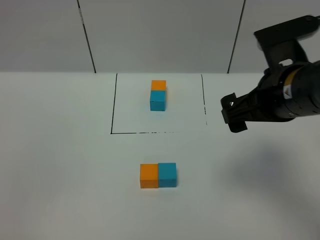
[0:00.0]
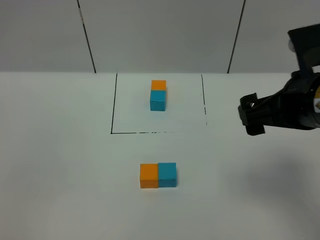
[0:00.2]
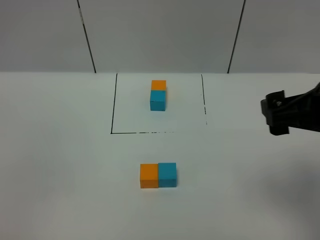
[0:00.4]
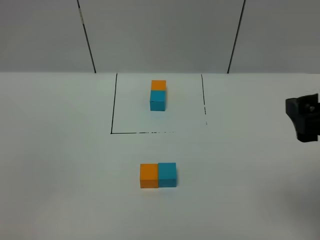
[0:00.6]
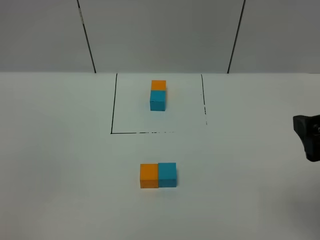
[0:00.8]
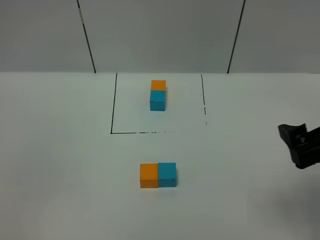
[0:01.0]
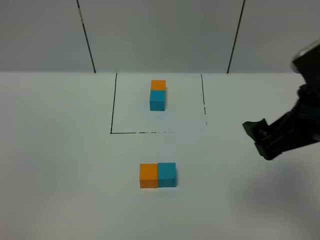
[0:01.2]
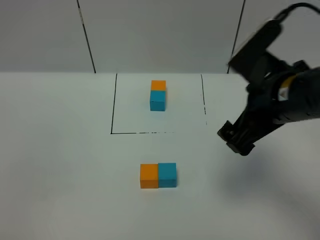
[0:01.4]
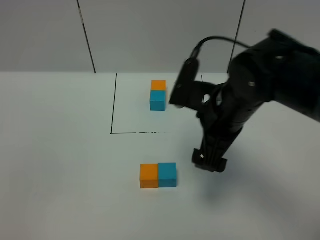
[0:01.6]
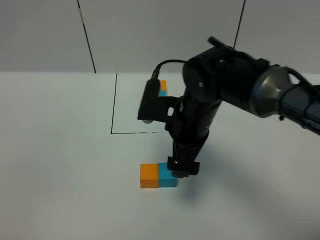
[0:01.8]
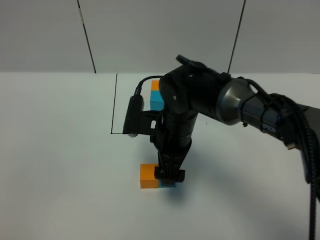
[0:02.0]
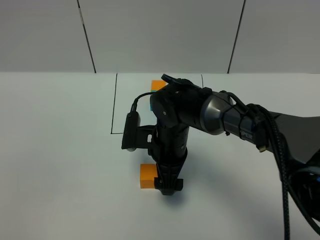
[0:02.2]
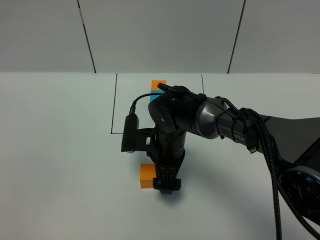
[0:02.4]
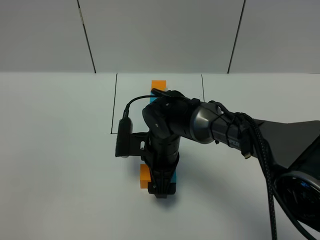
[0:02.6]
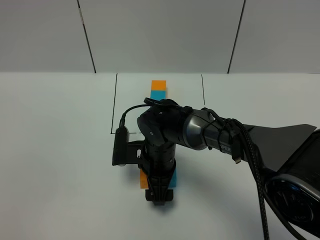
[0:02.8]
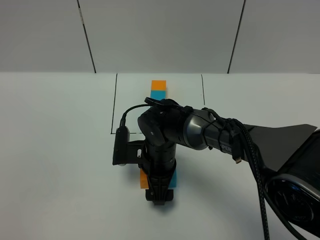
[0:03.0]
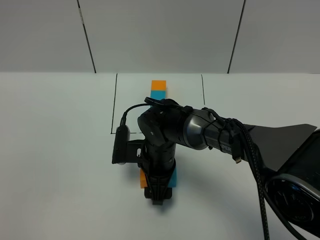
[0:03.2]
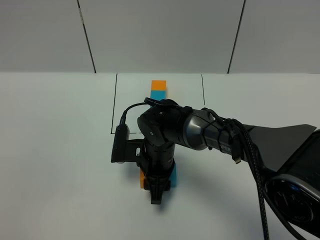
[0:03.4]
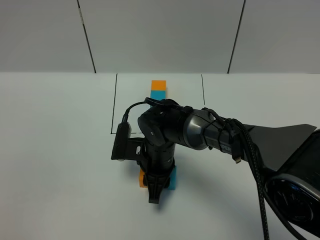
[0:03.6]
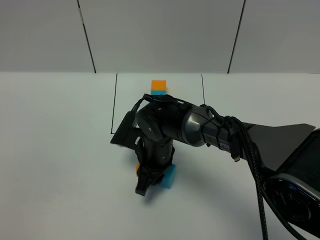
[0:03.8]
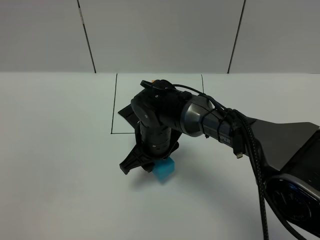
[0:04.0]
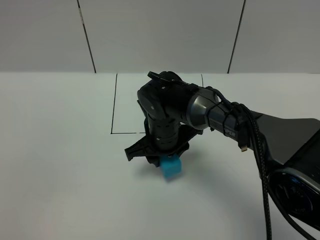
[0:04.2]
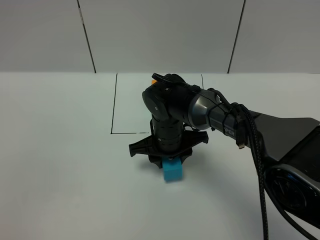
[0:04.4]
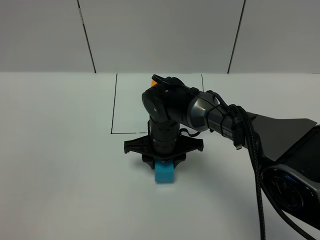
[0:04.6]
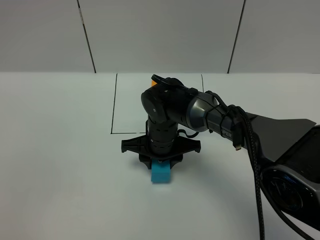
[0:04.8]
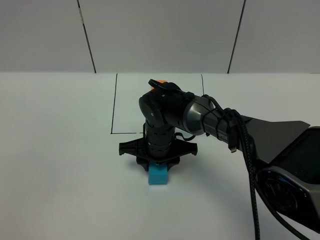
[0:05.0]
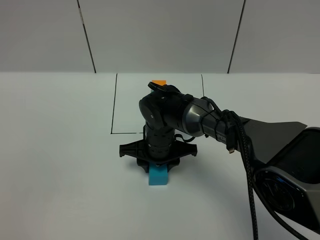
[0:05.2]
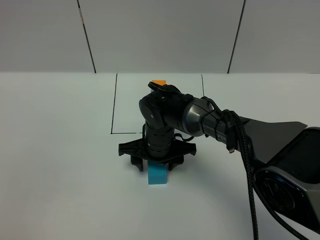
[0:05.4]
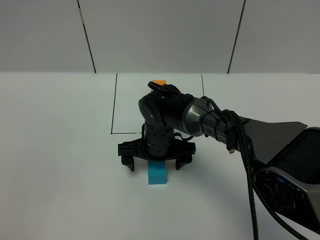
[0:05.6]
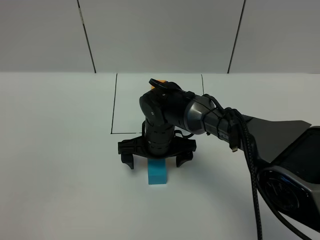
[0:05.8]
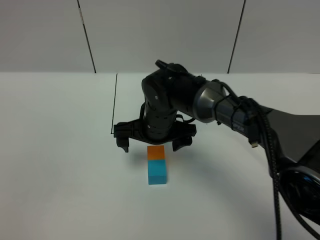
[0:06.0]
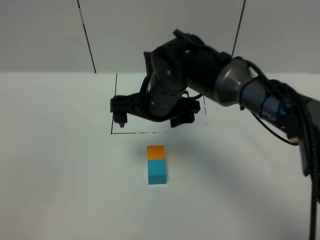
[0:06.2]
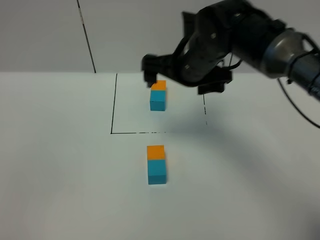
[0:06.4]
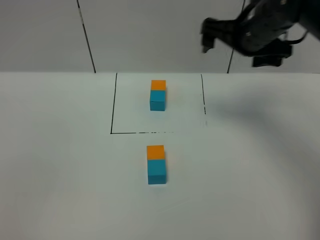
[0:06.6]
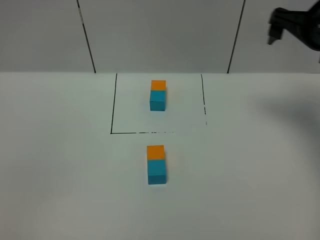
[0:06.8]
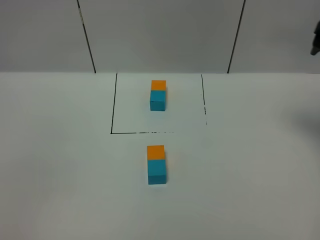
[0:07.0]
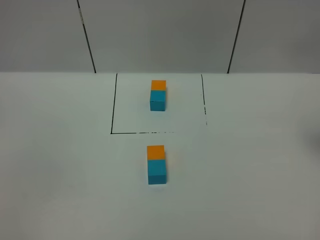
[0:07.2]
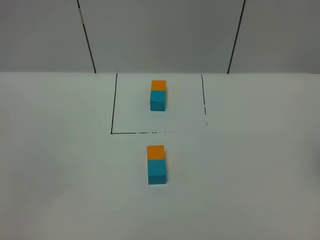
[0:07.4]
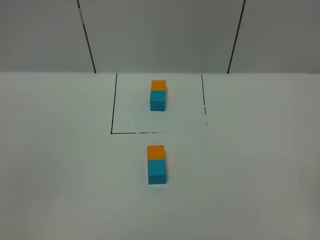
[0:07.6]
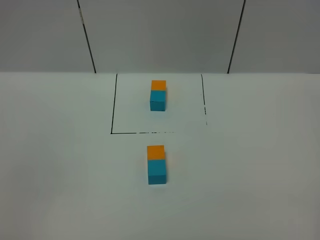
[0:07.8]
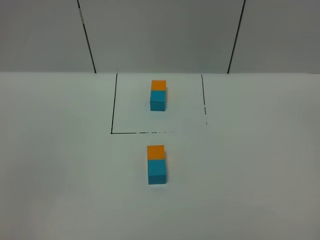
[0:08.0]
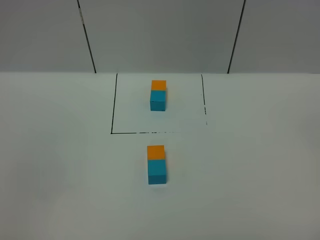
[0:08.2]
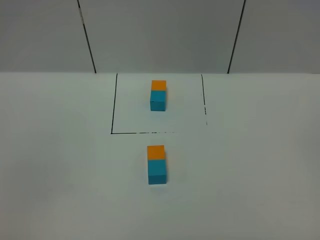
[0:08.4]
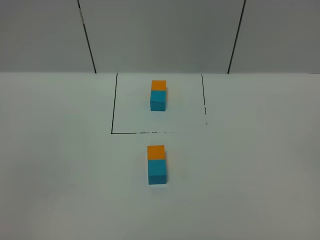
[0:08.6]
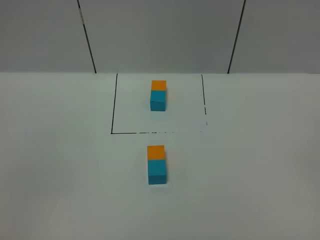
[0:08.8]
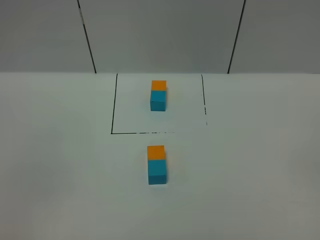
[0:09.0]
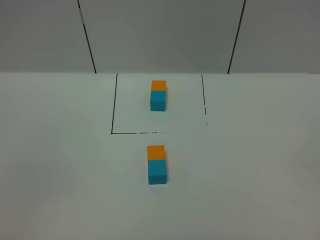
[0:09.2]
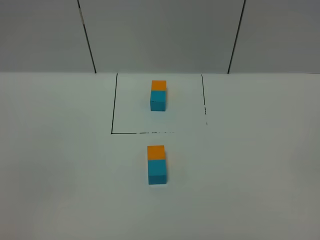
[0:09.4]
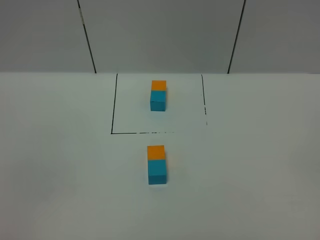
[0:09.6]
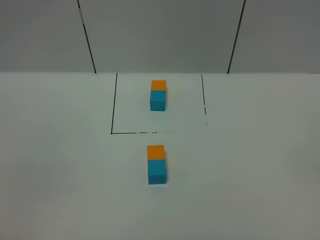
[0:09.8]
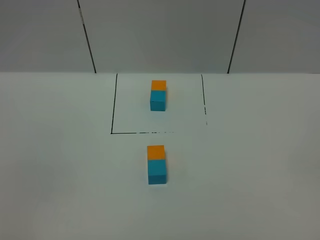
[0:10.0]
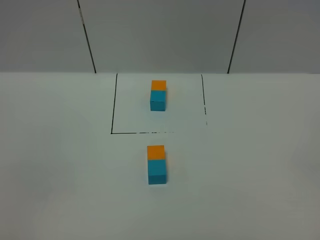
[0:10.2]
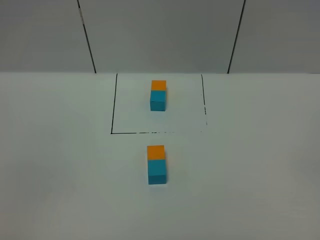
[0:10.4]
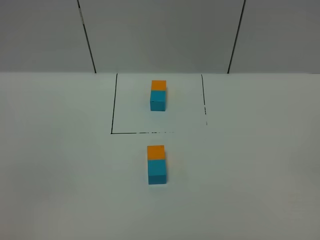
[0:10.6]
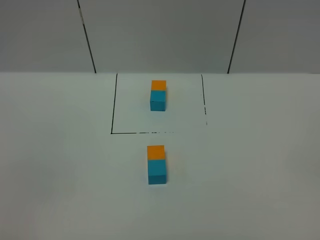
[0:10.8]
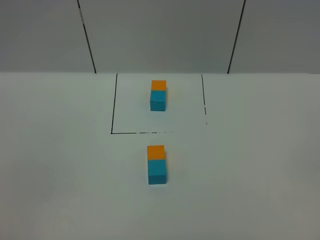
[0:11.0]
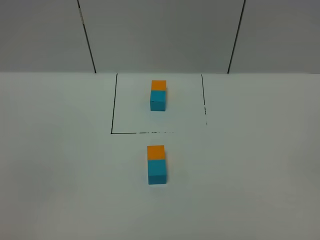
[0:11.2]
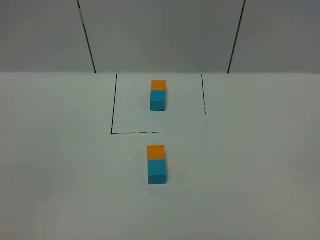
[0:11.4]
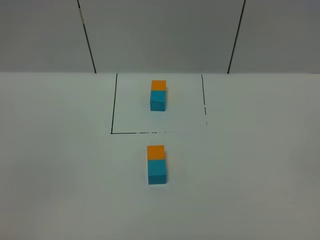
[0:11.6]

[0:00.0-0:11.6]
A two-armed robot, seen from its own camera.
Task of the whole recording: According to the building block template in front, assemble the scattered blocks together.
Step, 0:00.0 to 0:05.8: Adjust the pose of the building blocks.
0:00.0 to 0:01.4: The right gripper moves roughly 10 cm backward and comes back.
0:01.4 to 0:02.8: The right gripper heads downward and to the left, covering roughly 25 cm.
0:02.8 to 0:04.4: The right gripper closes up.
0:04.4 to 0:05.8: The right gripper opens.
0:05.8 to 0:07.2: The right gripper moves to the right and upward, approximately 40 cm.
0:08.8 to 0:11.6: Both grippers stay about where they are.
